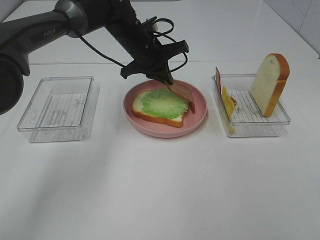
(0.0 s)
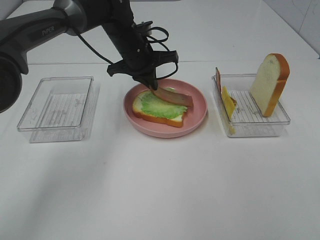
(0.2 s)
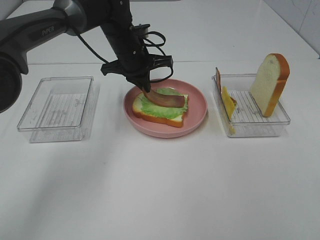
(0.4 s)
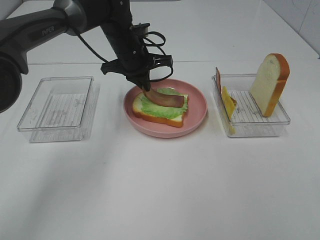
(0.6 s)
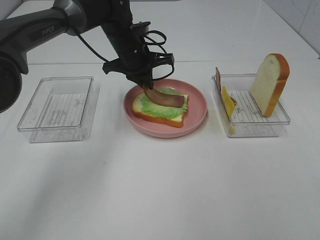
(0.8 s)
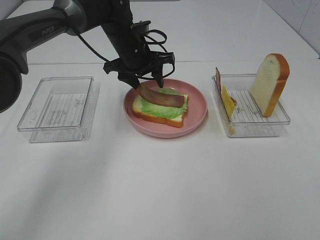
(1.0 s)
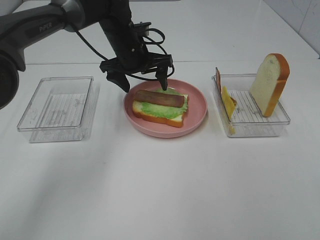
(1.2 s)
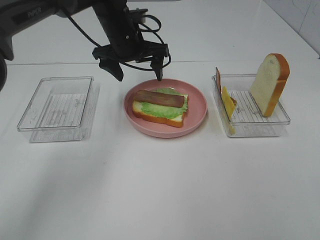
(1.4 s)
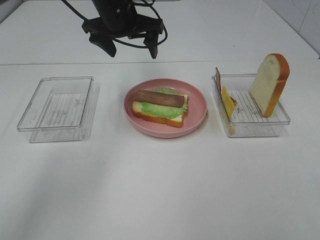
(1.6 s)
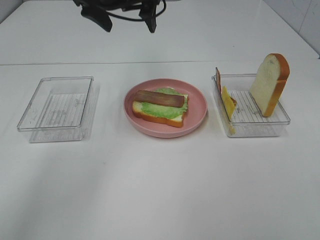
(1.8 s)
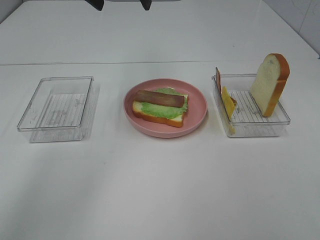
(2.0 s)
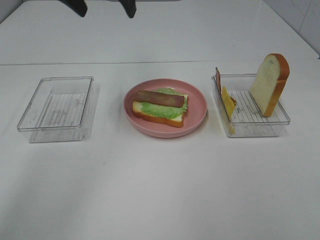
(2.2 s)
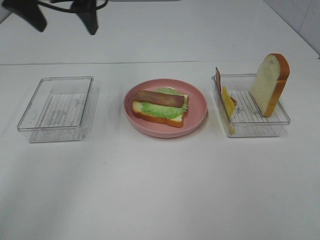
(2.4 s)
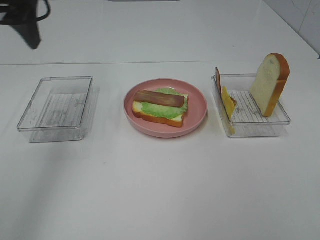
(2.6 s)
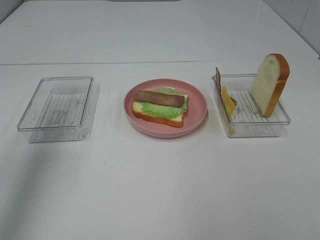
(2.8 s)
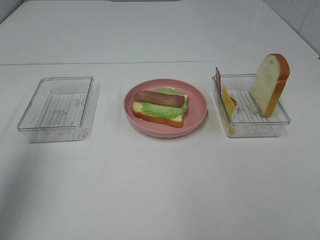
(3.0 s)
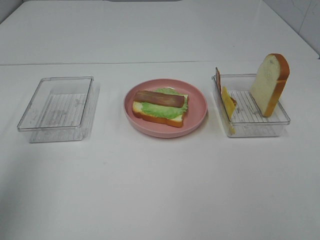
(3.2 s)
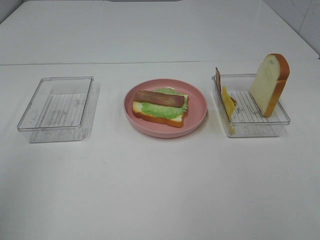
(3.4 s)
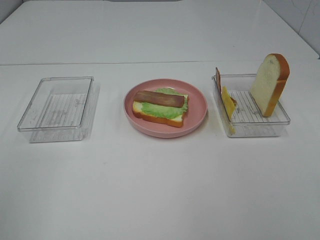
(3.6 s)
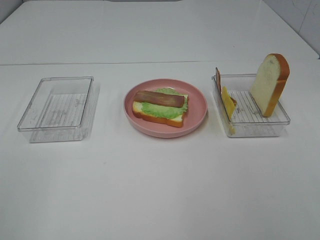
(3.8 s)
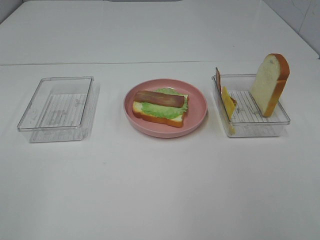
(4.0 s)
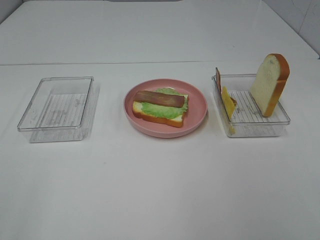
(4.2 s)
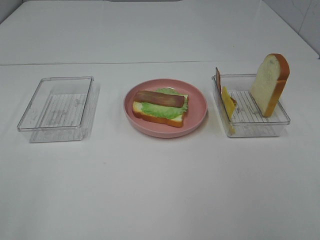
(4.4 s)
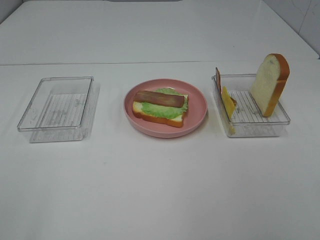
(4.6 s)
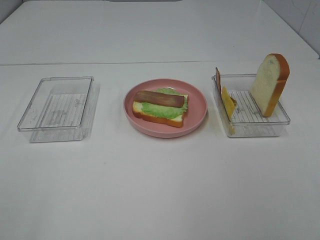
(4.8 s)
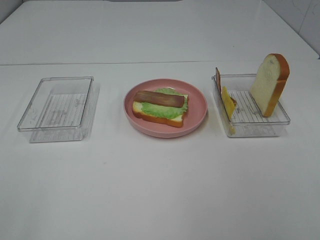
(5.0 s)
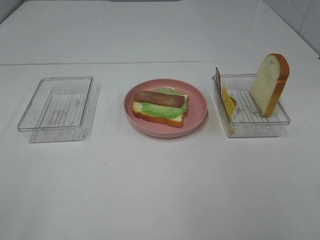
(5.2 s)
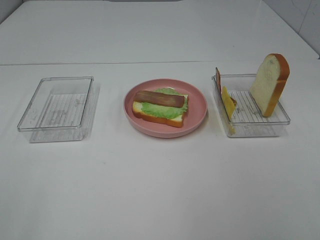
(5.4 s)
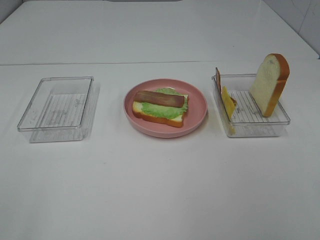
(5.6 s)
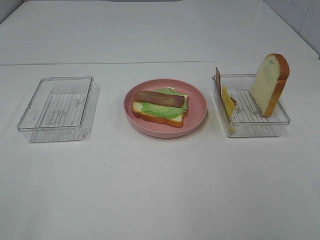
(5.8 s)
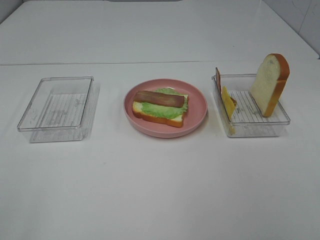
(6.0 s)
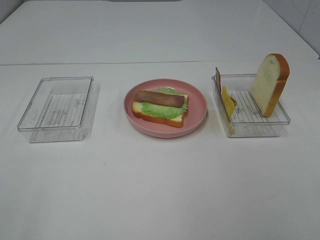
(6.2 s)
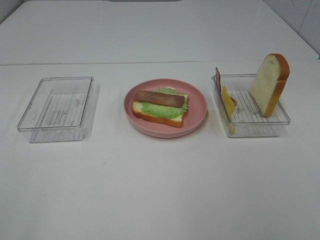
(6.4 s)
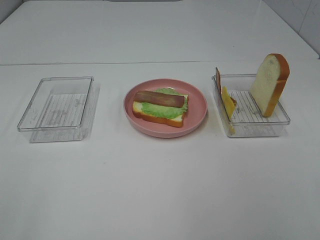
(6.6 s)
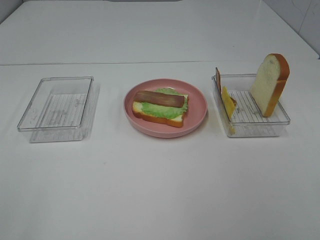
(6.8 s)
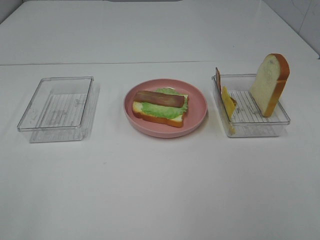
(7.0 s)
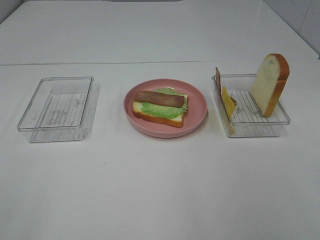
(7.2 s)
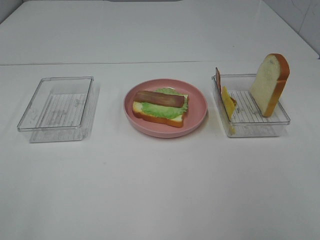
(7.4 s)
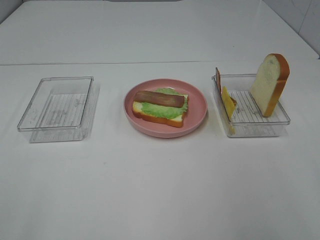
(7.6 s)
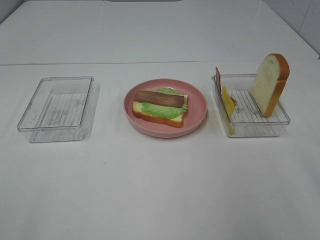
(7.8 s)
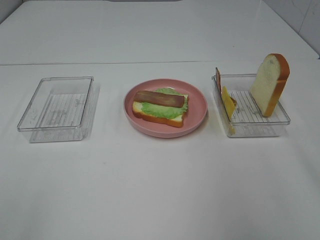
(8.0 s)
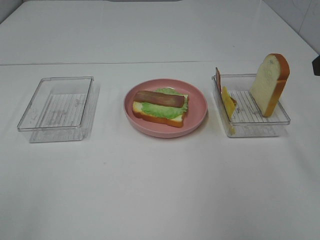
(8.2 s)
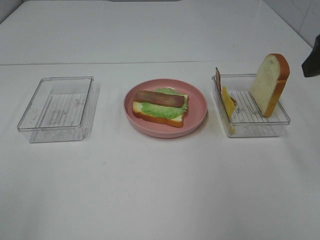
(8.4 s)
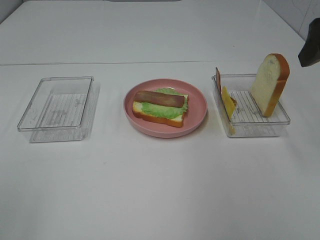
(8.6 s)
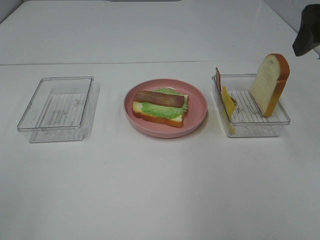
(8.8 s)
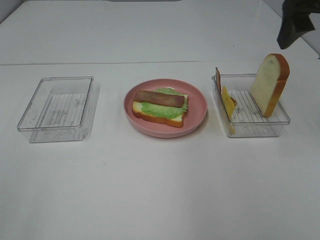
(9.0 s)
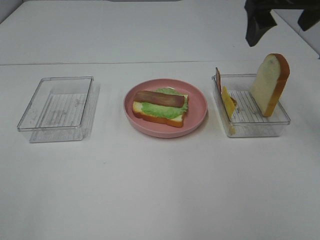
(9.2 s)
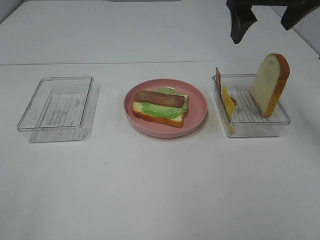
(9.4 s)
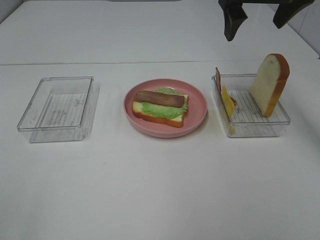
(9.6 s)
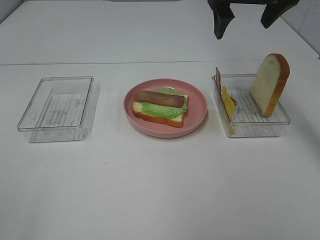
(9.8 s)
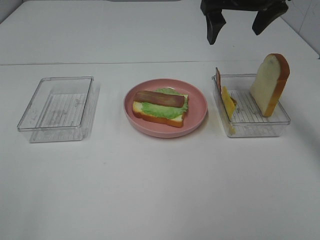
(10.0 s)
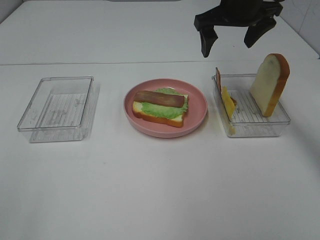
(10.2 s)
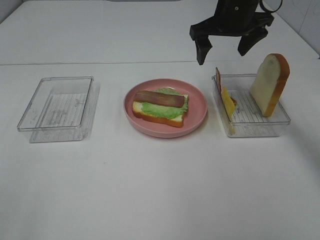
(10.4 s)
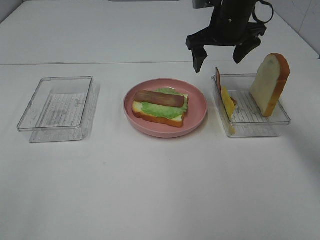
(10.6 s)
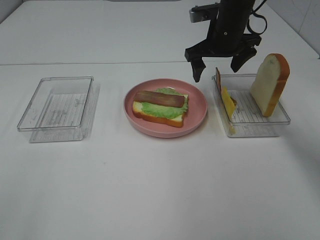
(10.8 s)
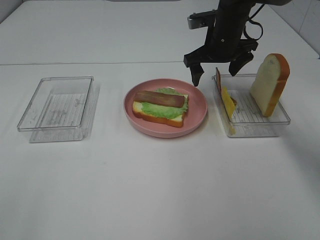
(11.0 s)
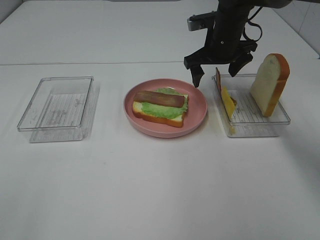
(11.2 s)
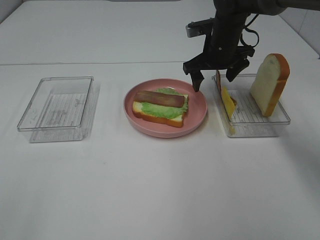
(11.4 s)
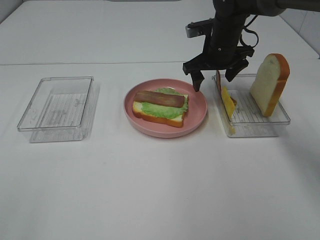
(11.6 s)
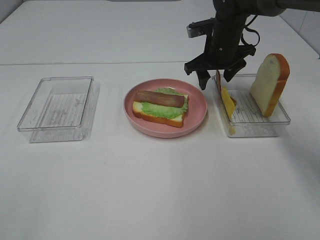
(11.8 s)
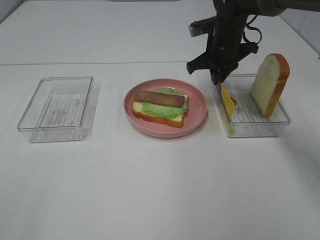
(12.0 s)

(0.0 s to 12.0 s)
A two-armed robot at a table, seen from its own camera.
Task of the whole recording: Make sandwiches.
0.0 s - 1.6 s: The left gripper is displaced upward by about 10 cm, and opens its fingers.
1.6 s - 3.0 s: The left gripper goes roughly 35 cm backward and to the left.
3.0 s - 4.4 s: The left gripper moves backward, roughly 20 cm.
7.6 s - 9.0 s: The right gripper goes roughly 25 cm forward.
9.0 s - 10.4 s: The right gripper moves forward, downward and to the left, some 20 cm.
10.4 s - 12.0 s: The right gripper goes about 10 cm downward, and closes up.

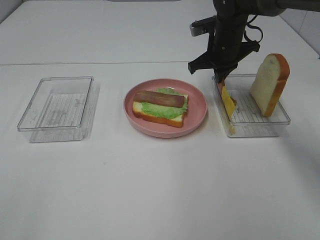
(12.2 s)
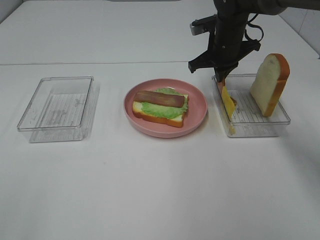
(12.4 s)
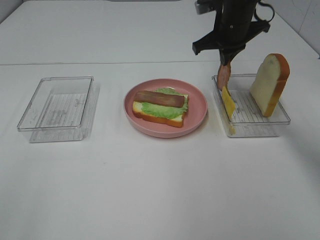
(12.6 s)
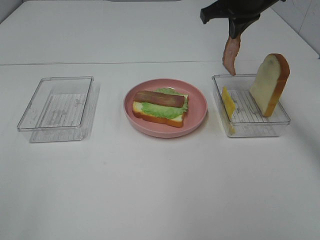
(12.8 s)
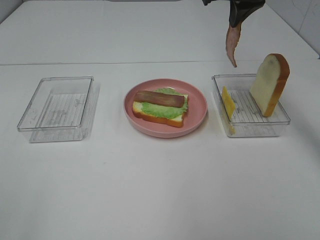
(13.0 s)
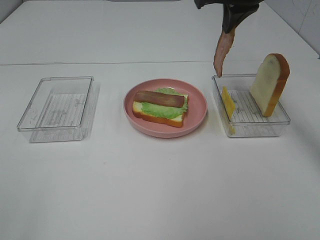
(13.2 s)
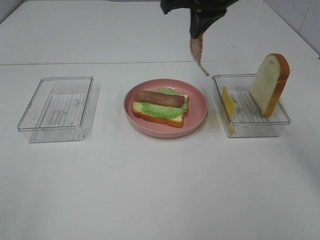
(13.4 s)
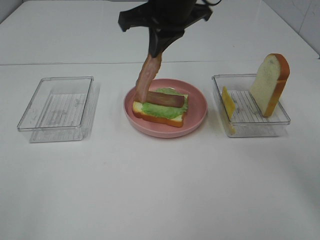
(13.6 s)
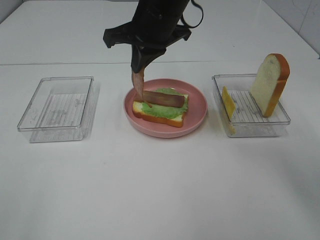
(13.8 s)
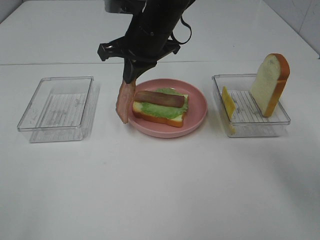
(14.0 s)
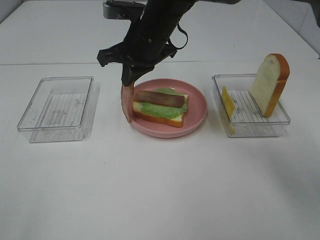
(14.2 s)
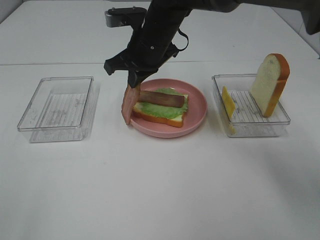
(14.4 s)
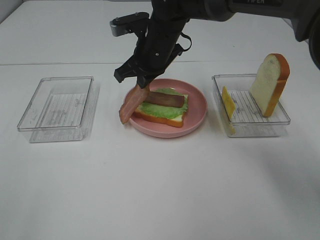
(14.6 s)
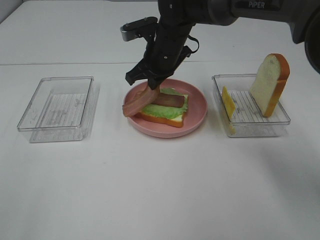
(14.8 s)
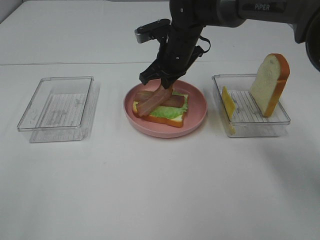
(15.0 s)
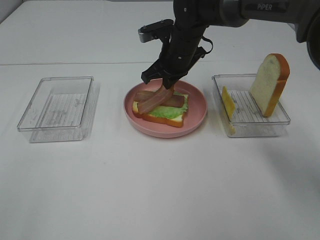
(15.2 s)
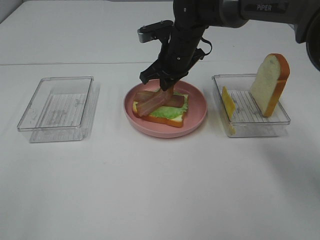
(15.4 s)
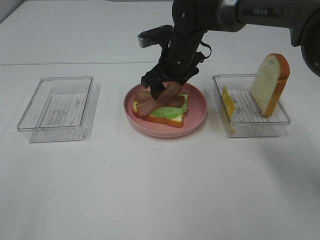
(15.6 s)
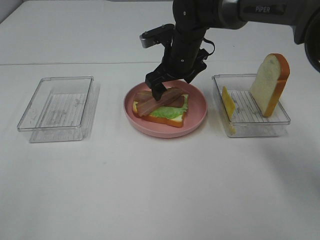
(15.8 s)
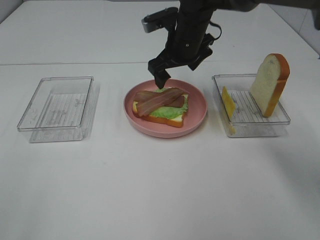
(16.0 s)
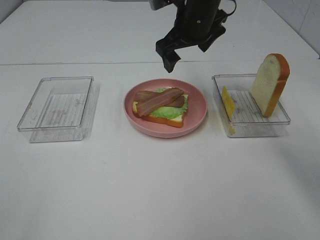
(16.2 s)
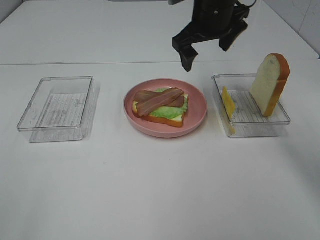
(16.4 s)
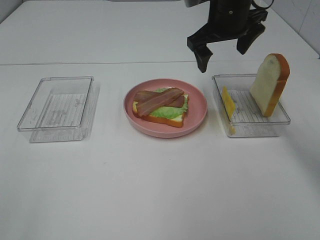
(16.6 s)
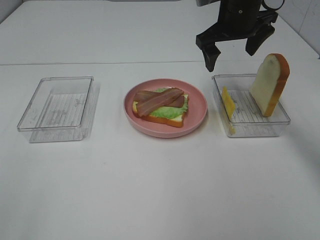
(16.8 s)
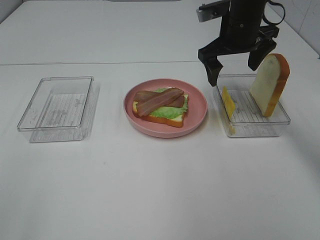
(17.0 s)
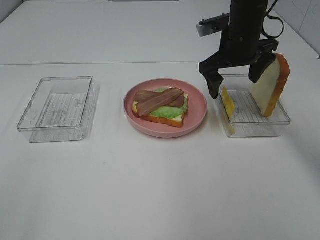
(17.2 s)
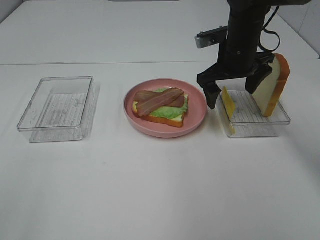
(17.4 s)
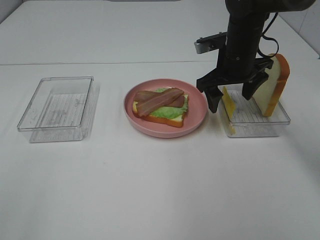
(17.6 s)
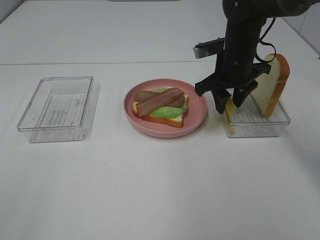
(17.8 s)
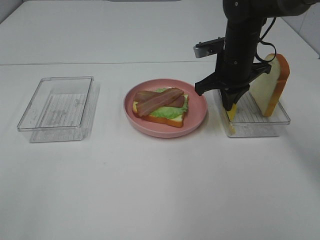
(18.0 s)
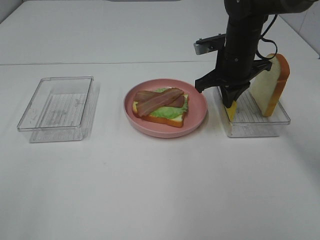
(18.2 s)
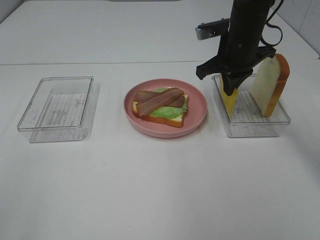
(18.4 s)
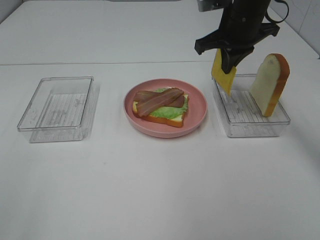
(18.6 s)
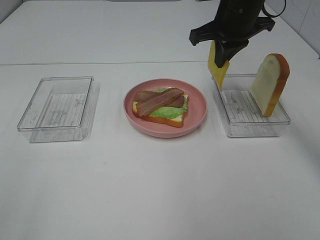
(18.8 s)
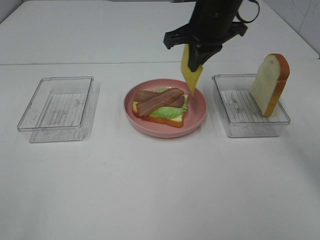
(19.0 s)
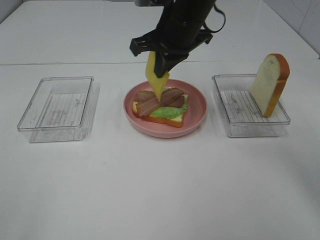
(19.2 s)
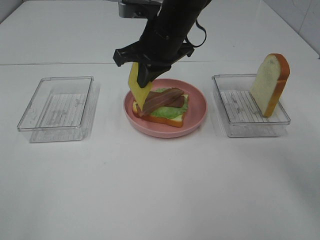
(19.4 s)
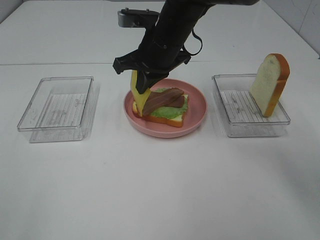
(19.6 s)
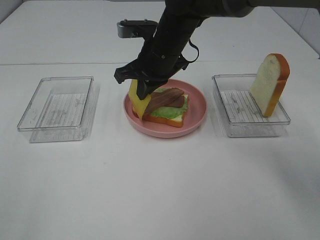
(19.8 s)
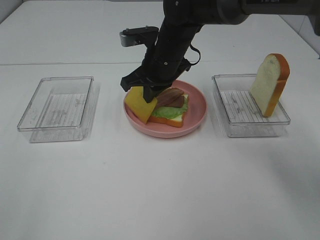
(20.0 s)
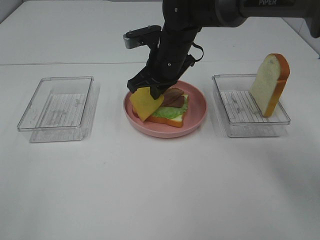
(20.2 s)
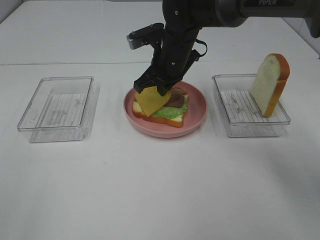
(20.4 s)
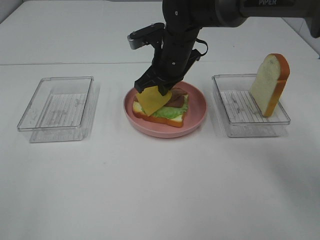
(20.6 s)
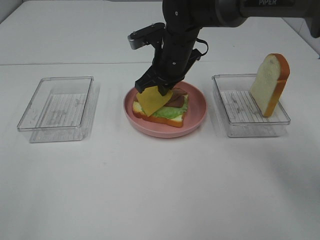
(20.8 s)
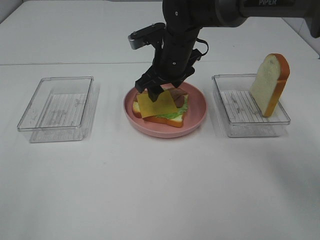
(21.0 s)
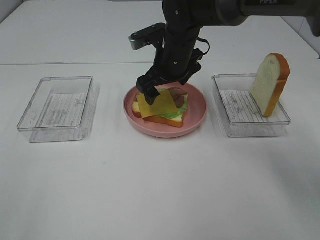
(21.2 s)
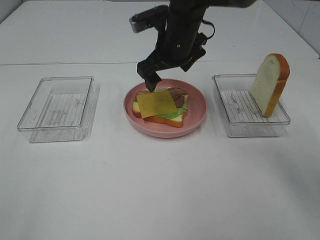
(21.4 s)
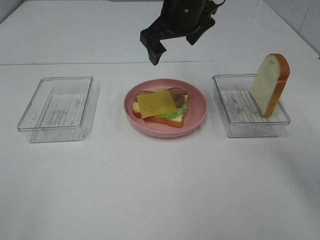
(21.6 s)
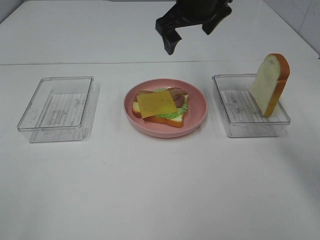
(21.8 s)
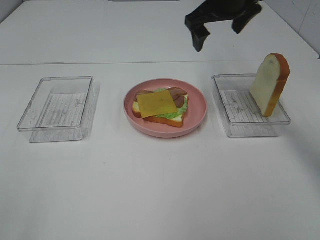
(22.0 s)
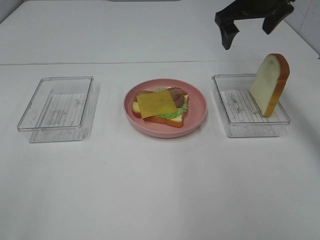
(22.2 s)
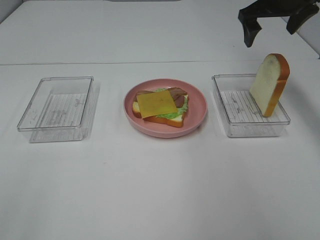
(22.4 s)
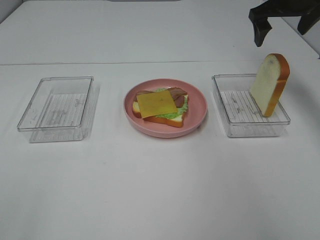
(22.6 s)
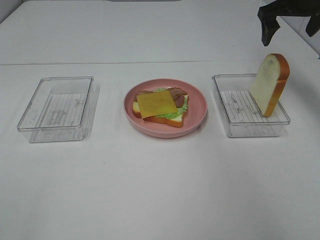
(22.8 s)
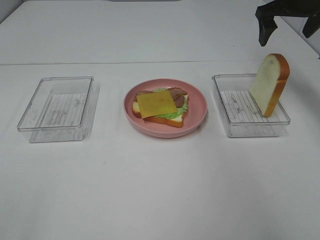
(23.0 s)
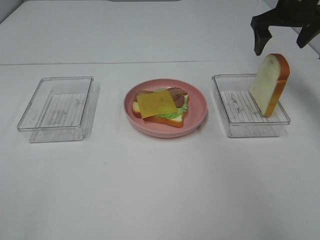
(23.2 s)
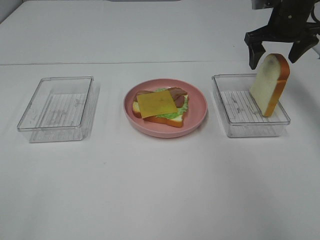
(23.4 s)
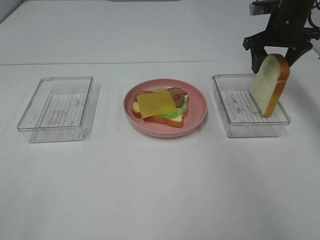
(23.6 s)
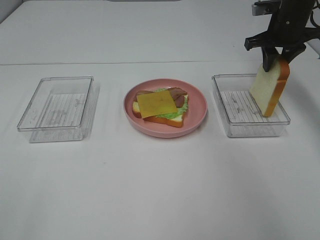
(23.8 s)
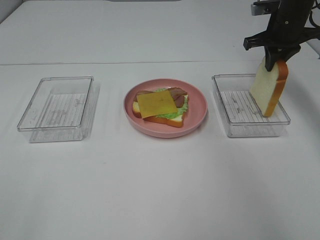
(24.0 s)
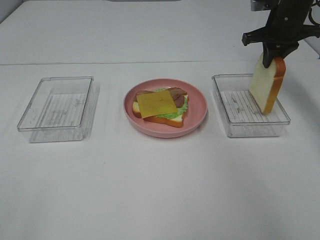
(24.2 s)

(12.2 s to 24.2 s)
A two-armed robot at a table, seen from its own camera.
Task of the whole recording: Make sandwiches.
Step, 12.4 s - 16.0 s: Right hand:place bacon on bacon.
Step, 16.2 s - 18.0 s: Right hand:grab the cheese slice.
Step, 18.2 s - 21.2 s: Right hand:place the cheese slice on top of the bacon.
Step, 21.4 s - 23.8 s: Right hand:grab the bread slice.
12.2 s - 13.8 s: The right gripper is displaced to the left, backward and upward by roughly 20 cm.
13.8 s - 15.2 s: The right gripper heads downward and forward, covering some 10 cm.
15.2 s - 16.6 s: The right gripper moves upward and to the right, roughly 10 cm, and opens its fingers.
16.6 s - 18.2 s: The right gripper is displaced downward by approximately 10 cm, and closes up.
18.2 s - 19.8 s: The right gripper is displaced to the left by some 15 cm.
19.8 s - 21.2 s: The right gripper opens.
21.2 s - 22.6 s: The right gripper goes some 25 cm to the right and upward.
22.6 s - 24.2 s: The right gripper goes roughly 5 cm downward, and closes.
